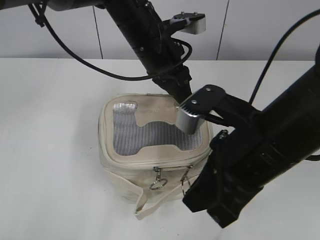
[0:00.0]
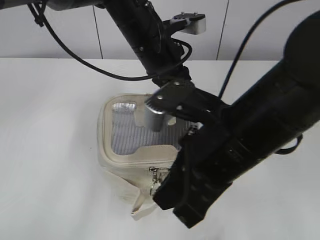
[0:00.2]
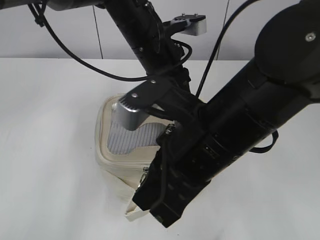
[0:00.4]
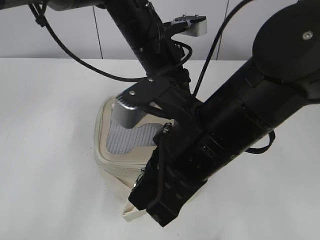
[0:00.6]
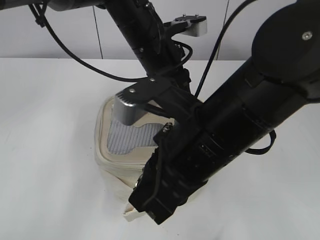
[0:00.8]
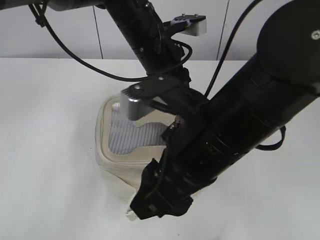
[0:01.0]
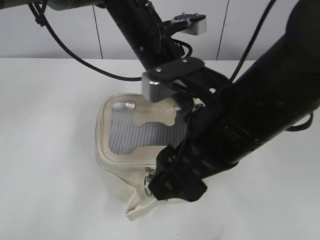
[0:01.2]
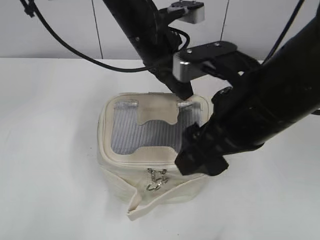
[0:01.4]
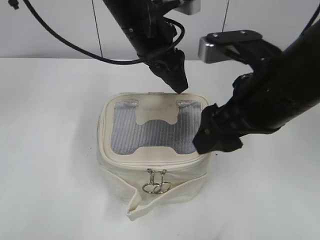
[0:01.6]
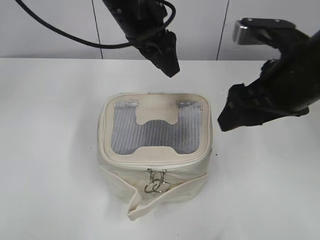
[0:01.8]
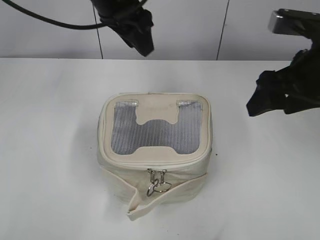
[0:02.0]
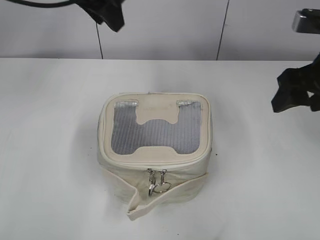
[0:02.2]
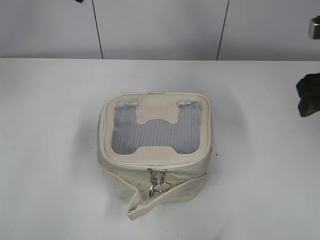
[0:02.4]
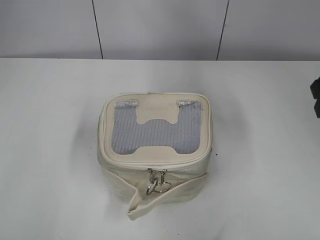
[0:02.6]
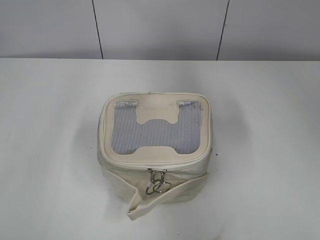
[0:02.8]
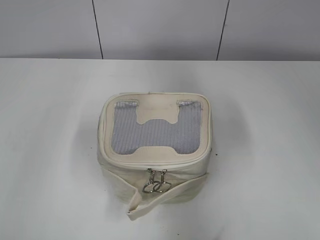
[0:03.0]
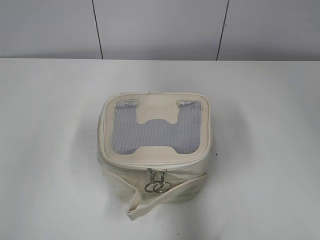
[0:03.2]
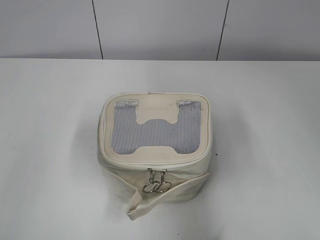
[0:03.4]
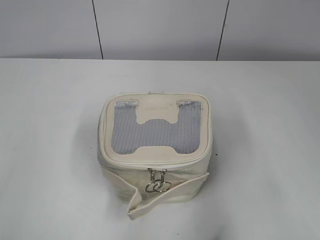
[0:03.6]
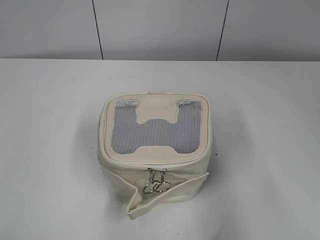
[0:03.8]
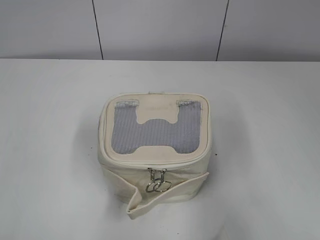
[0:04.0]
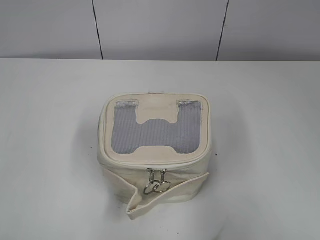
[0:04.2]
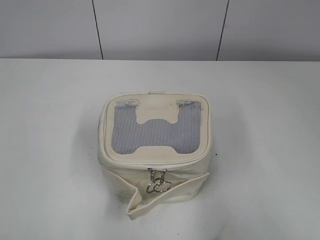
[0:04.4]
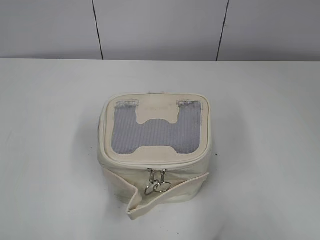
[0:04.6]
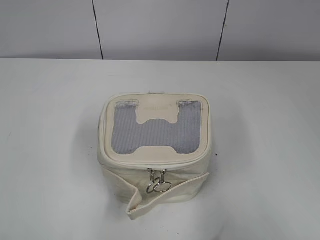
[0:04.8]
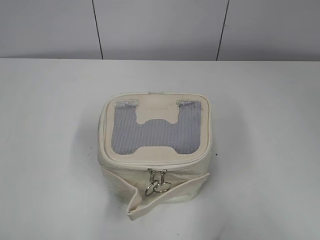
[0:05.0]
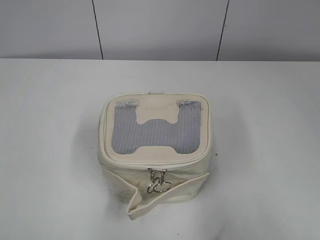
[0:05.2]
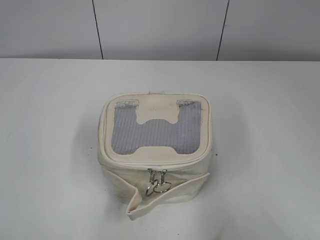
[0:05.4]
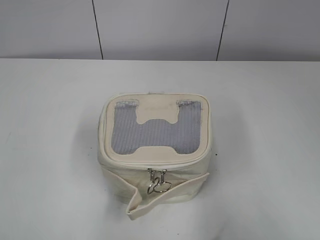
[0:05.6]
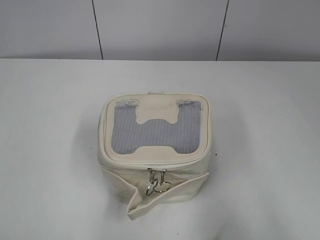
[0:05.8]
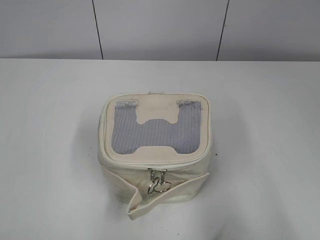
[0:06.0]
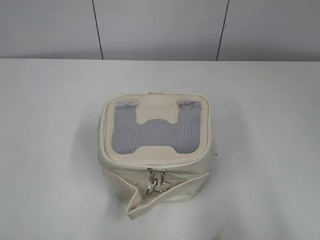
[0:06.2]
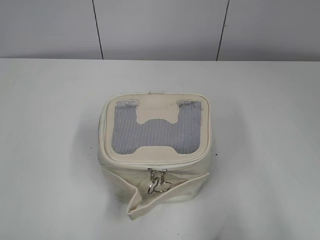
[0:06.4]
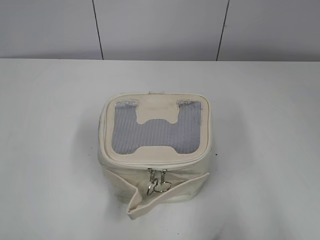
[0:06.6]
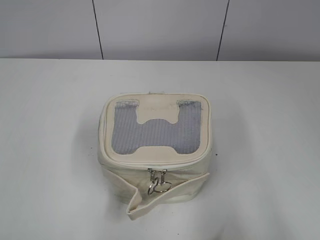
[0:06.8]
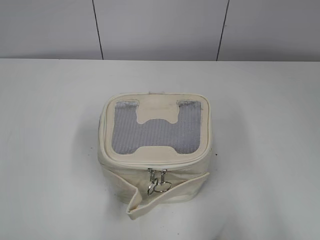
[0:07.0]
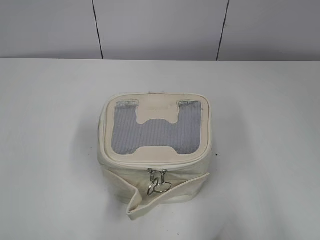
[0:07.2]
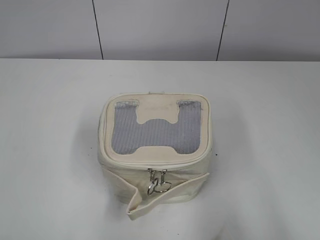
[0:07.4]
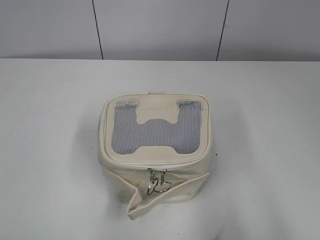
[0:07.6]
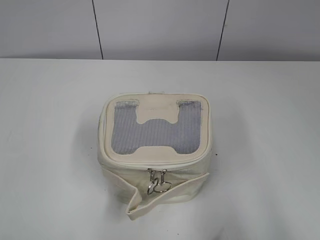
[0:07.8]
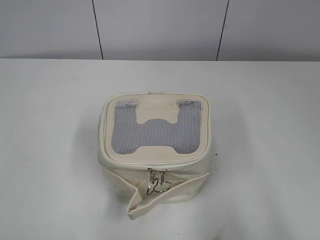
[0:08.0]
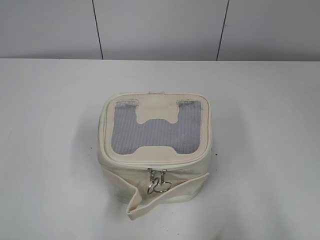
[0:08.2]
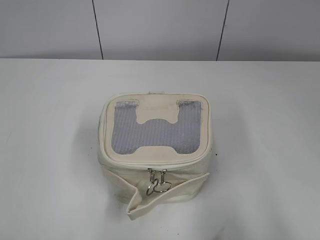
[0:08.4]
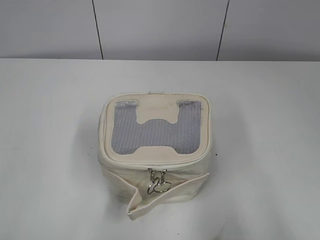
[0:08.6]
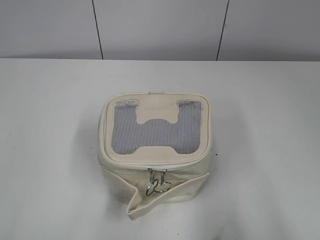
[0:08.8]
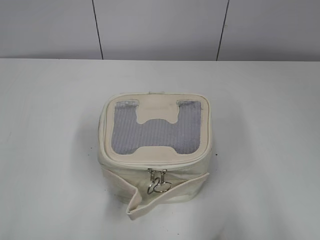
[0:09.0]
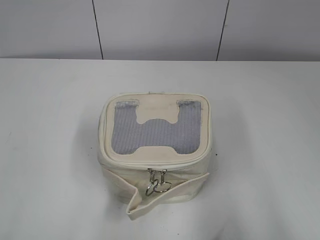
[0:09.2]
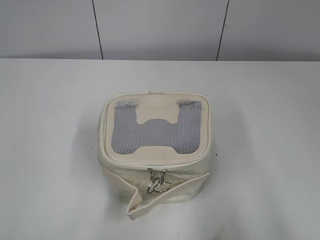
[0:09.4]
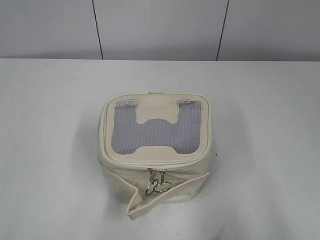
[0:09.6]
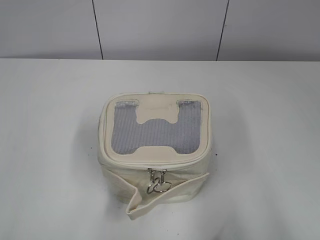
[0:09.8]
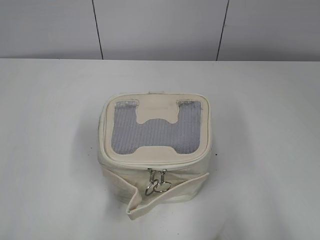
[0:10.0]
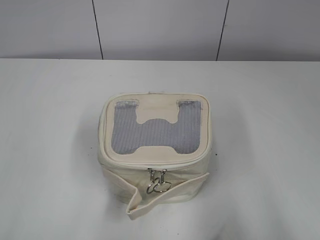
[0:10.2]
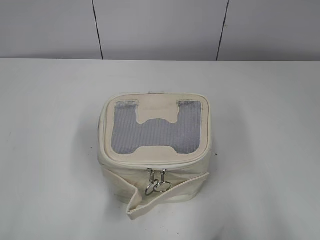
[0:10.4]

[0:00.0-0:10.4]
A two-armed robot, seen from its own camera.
0:00.0 to 0:01.4: The left gripper opens up, while the right gripper opens up.
0:01.4 to 0:03.0: The right gripper is displaced to the right by about 15 cm; the left gripper shifts roughly 30 cm to the left and upward.
0:03.0 to 0:04.4: The two grippers go approximately 25 cm backward.
0:09.0 to 0:10.4: Neither gripper changes place.

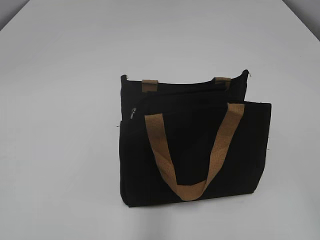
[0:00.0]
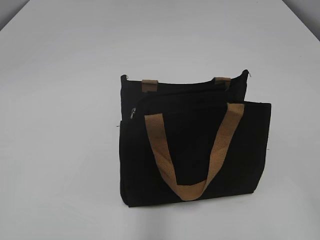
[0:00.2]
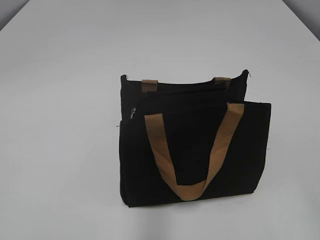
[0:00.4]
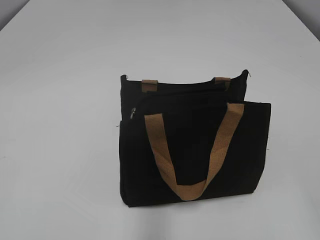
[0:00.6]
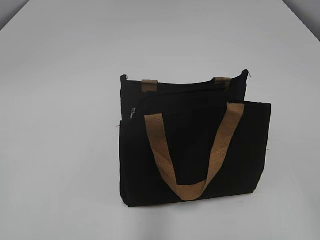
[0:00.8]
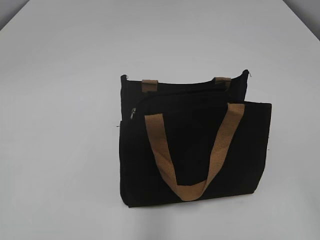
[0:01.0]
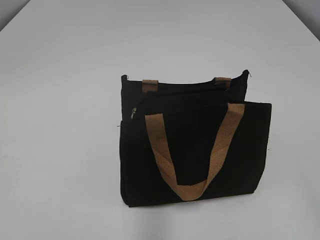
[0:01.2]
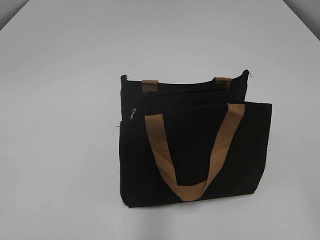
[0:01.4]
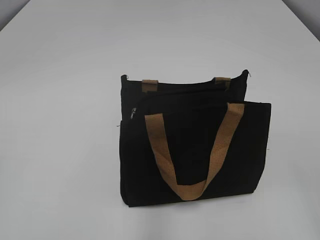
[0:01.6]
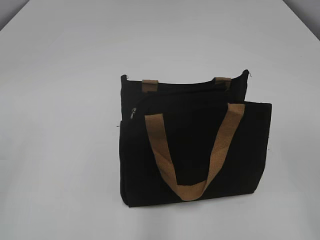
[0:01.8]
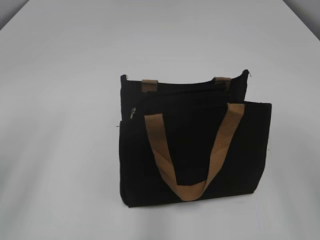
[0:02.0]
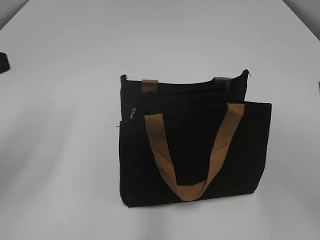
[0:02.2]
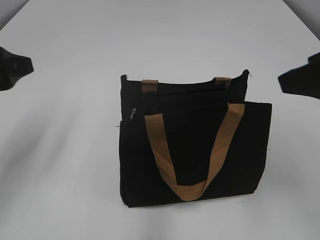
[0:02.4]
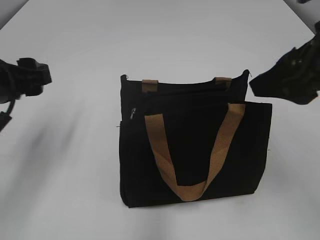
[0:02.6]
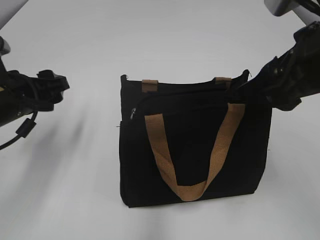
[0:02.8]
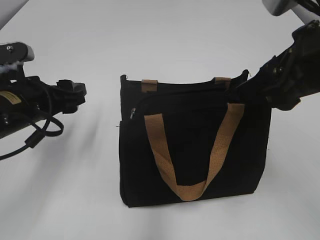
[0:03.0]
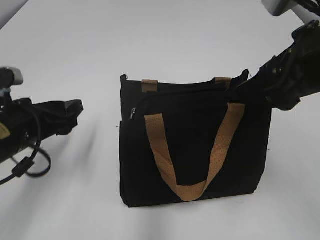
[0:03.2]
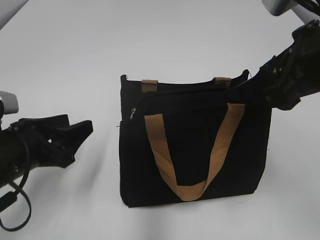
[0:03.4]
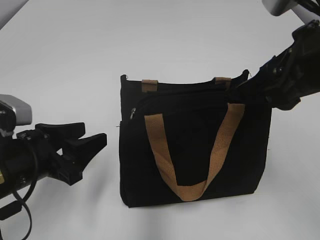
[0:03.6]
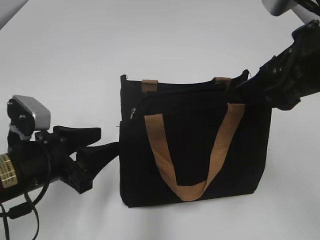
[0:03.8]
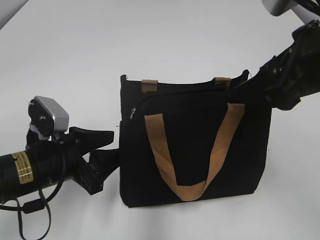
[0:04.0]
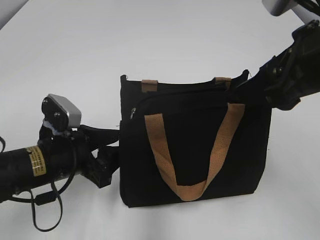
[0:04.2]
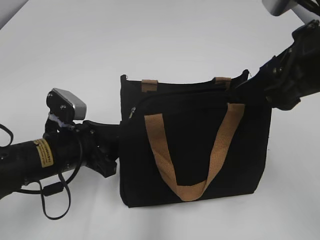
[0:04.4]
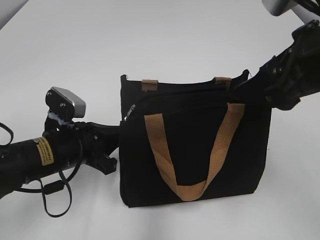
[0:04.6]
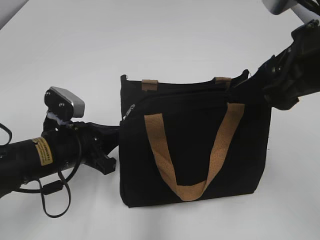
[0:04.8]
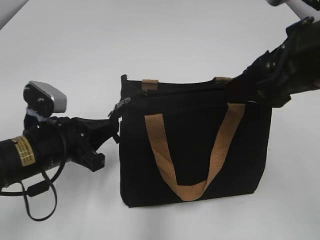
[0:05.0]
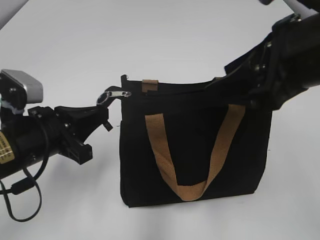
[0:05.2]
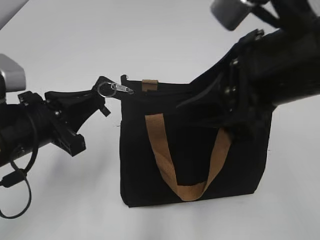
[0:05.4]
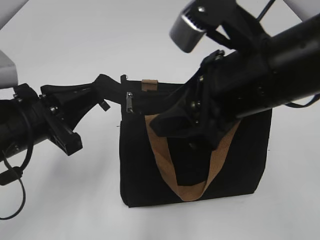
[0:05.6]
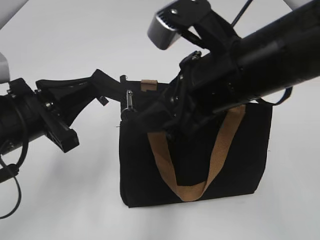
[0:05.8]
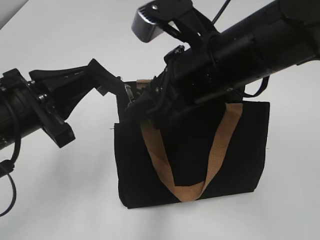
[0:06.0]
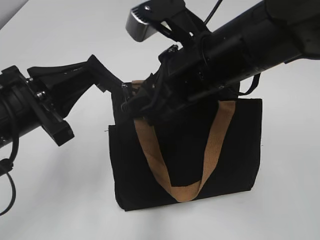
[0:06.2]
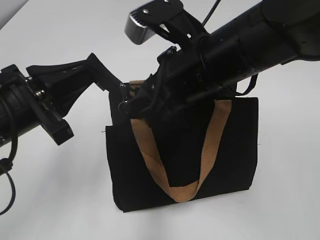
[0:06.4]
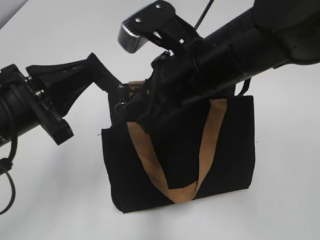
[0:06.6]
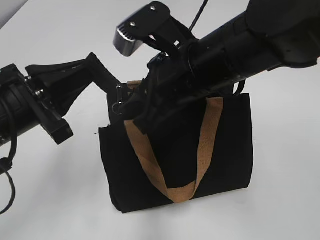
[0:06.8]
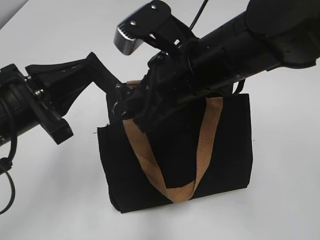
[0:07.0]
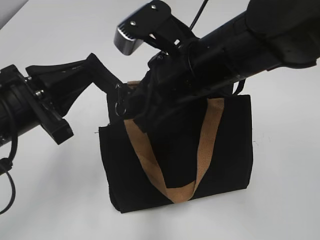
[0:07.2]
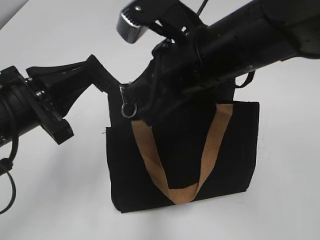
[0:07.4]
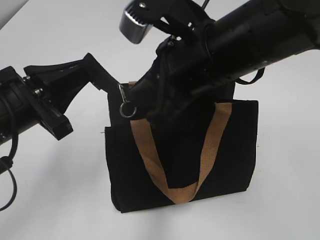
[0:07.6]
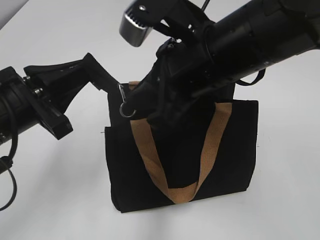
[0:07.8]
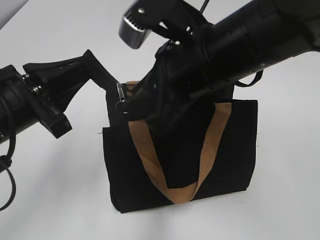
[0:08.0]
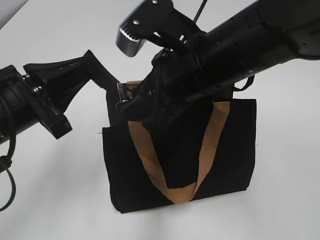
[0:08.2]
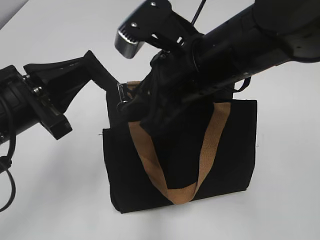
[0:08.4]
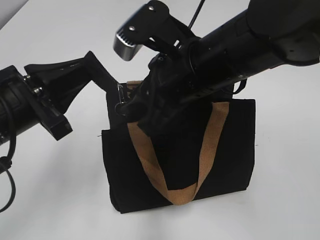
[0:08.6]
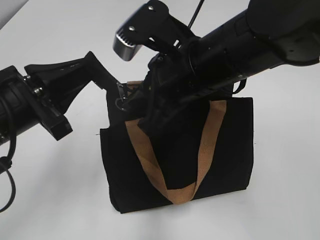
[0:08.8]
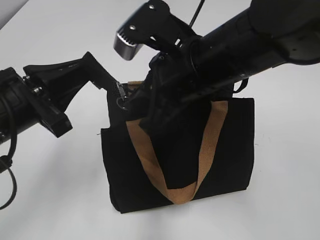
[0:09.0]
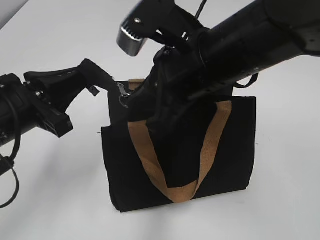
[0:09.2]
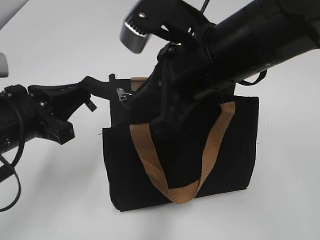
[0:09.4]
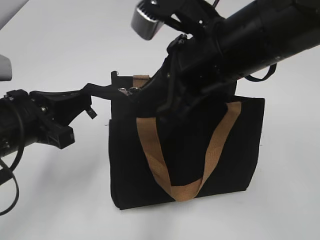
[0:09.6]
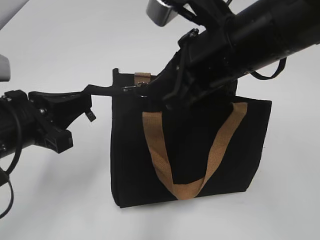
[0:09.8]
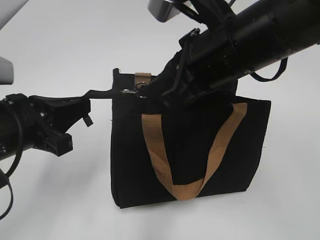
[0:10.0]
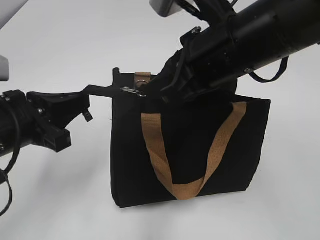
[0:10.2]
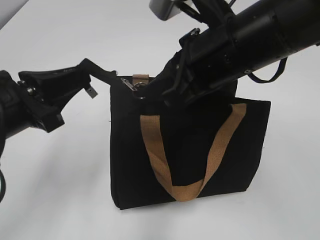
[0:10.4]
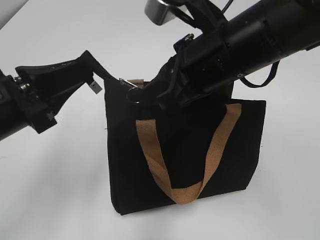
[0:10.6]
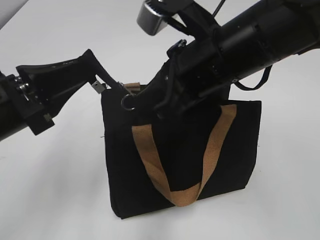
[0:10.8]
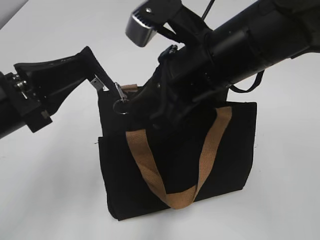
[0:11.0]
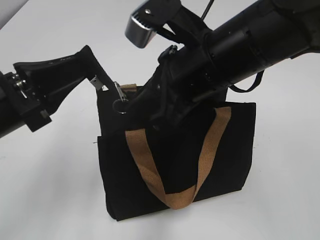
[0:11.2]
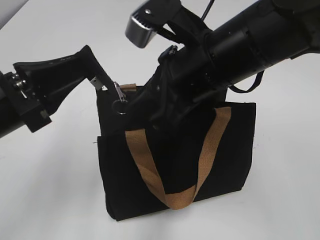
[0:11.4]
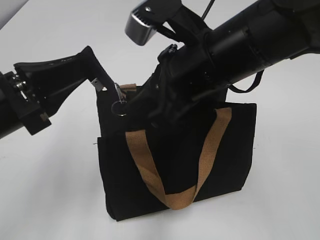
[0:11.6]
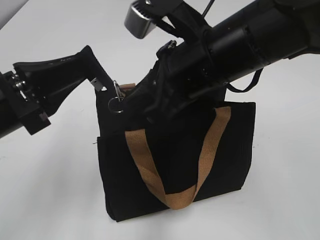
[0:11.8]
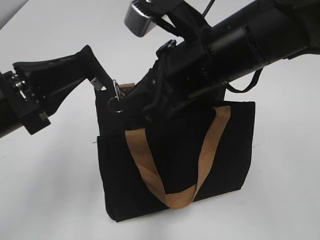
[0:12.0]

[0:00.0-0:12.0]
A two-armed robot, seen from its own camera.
0:01.6 to 0:03.0: The right gripper goes about 25 cm forward and to the left. Meanwhile the left gripper travels forward, downward and to the right by some 30 cm, and opens up.
0:03.0 to 0:04.4: The left gripper goes approximately 5 cm downward.
0:04.4 to 0:06.0: The left gripper moves upward, some 10 cm, and closes up. Meanwhile the right gripper goes approximately 10 cm to the left.
0:06.0 to 0:07.6: The right gripper closes.
0:07.6 to 0:09.0: The right gripper opens, then closes once more.
